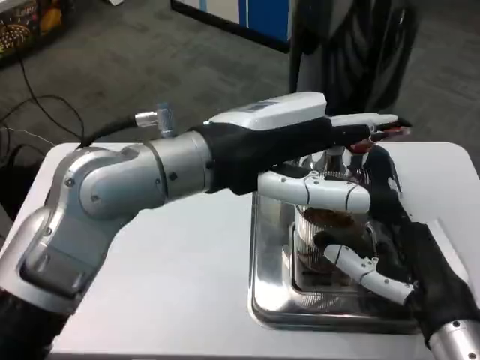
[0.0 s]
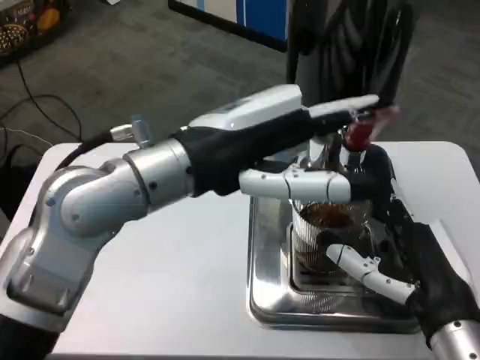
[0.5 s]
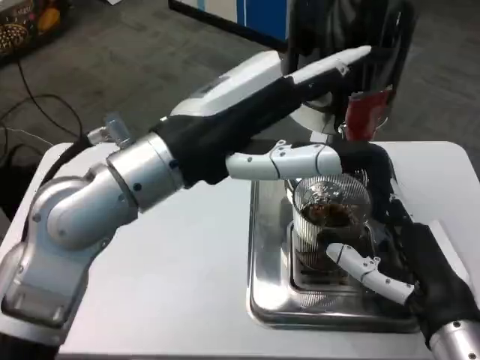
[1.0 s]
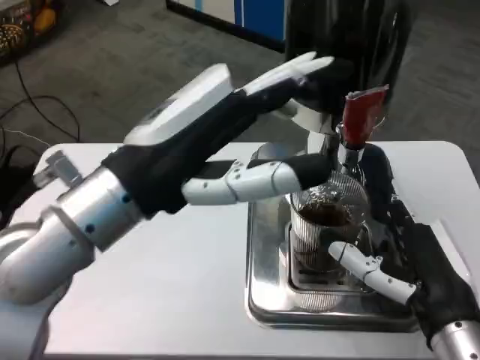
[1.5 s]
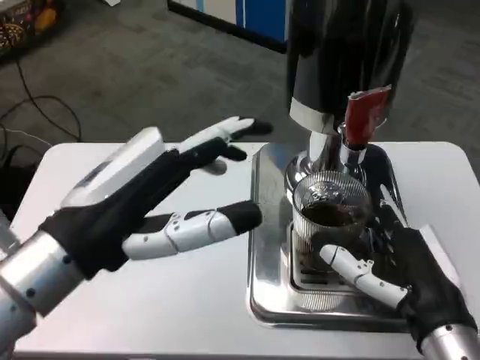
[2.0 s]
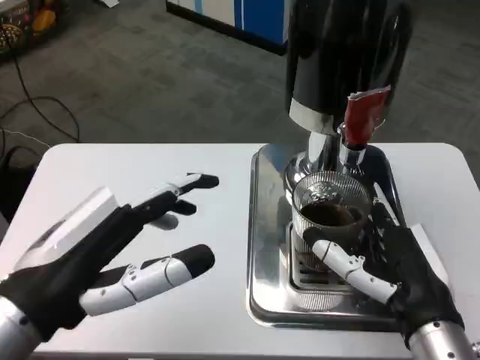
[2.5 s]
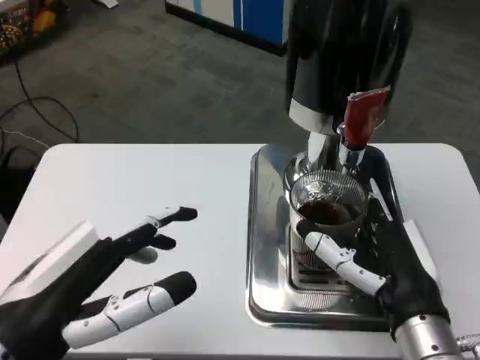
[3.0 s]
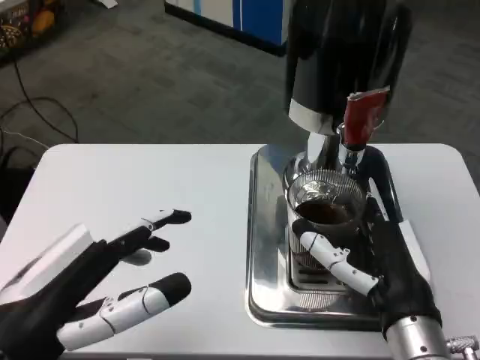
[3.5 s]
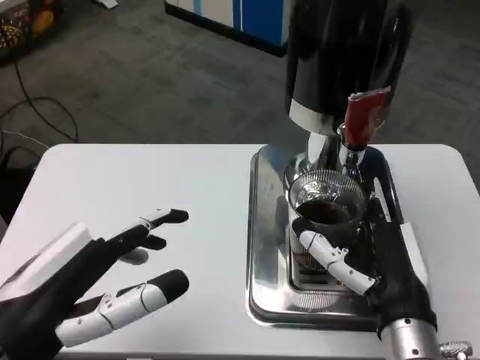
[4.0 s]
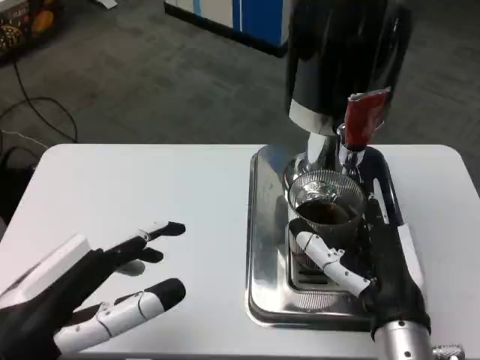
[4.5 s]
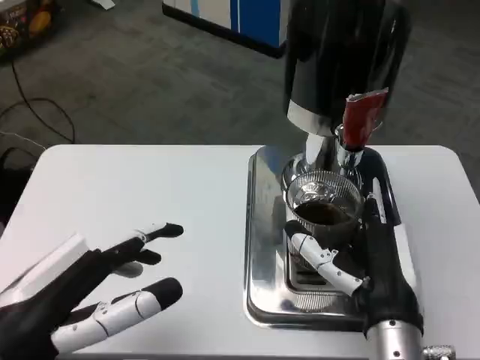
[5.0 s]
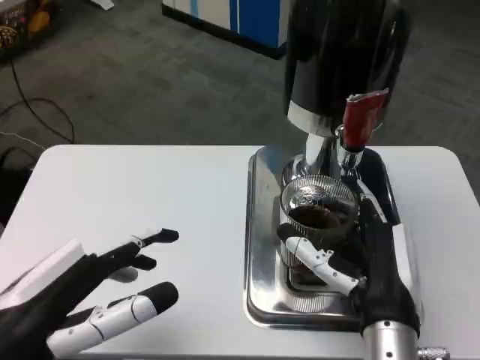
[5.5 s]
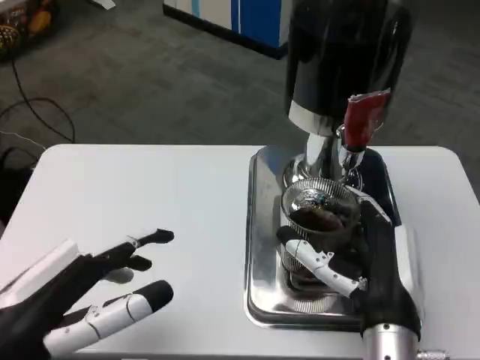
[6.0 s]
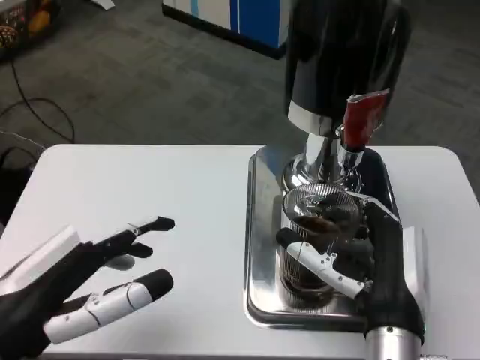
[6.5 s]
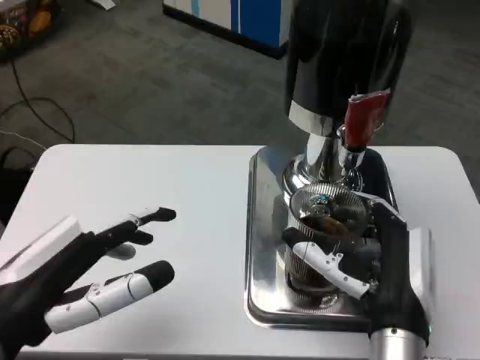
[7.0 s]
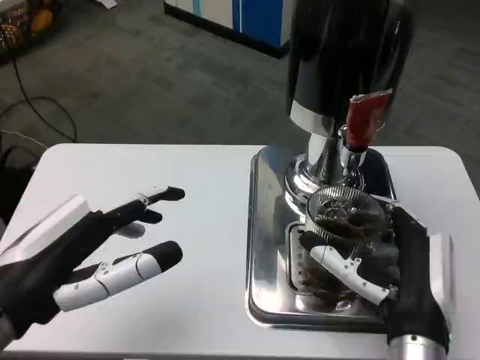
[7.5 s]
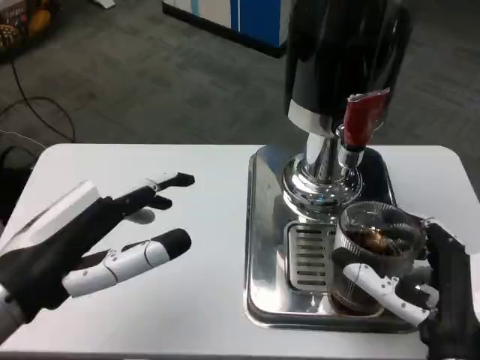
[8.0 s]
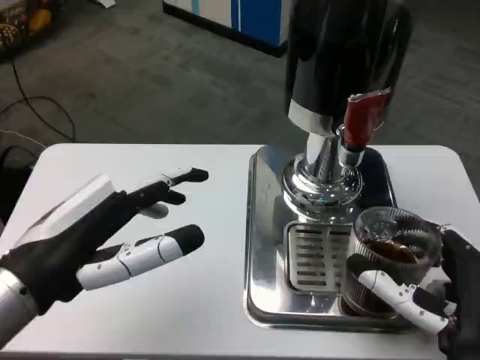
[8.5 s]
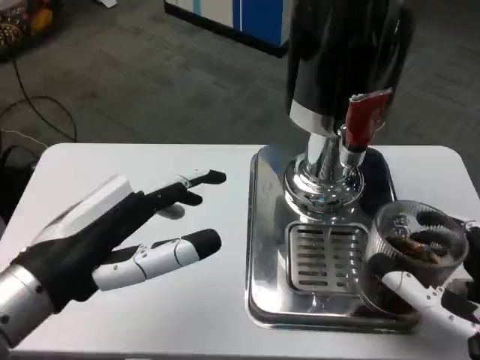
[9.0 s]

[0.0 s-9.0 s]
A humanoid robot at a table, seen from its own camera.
Task of the whole recording: Grasp the cup under the faucet to collect the drink, then remove the cup.
0.0 to 2.0 s: The left hand shifts roughly 15 cm to the left, downward and backward.
2.0 to 4.5 s: The left hand goes some 5 cm backward. The right hand changes place by some 5 cm.
4.5 to 7.0 s: There are only small adjustments of the hands.
7.0 to 9.0 s: The right hand shifts about 10 cm to the right and backward.

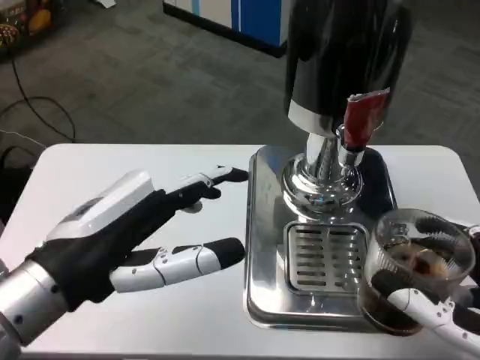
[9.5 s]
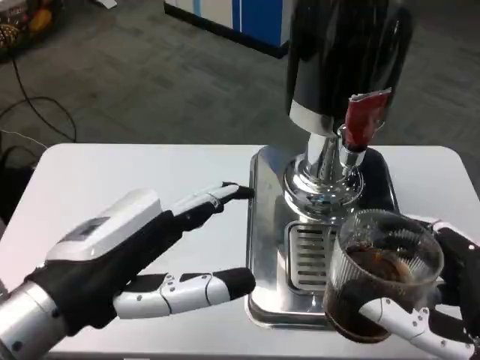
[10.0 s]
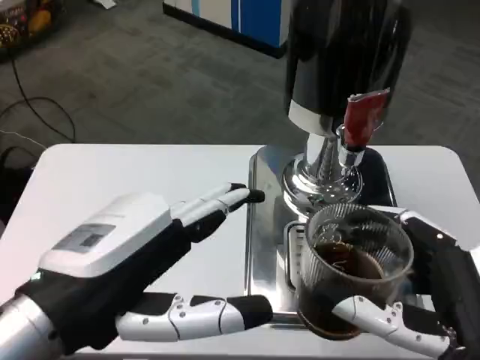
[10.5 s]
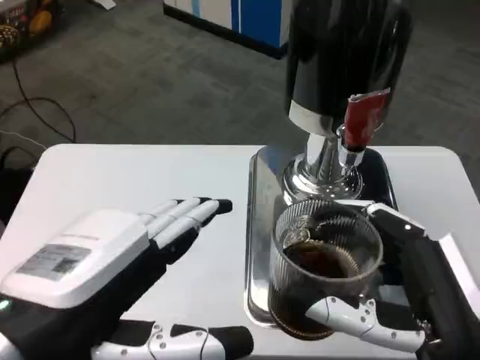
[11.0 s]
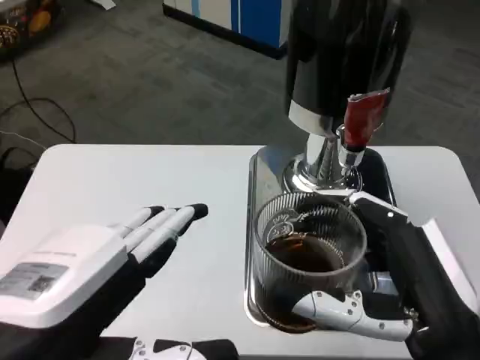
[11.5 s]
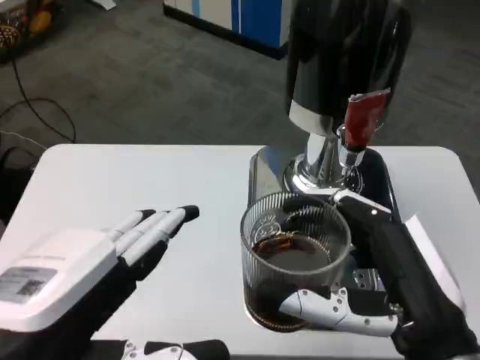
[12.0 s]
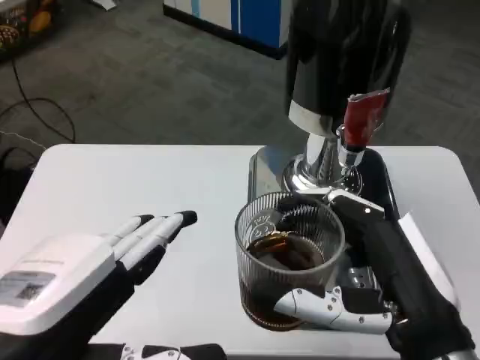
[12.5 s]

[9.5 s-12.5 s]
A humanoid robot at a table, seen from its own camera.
Task of the whole recording: Grasp the cup under the faucet to collect the drink, then remove the cup.
9.5 to 11.0 s: The left hand shifts approximately 10 cm backward.

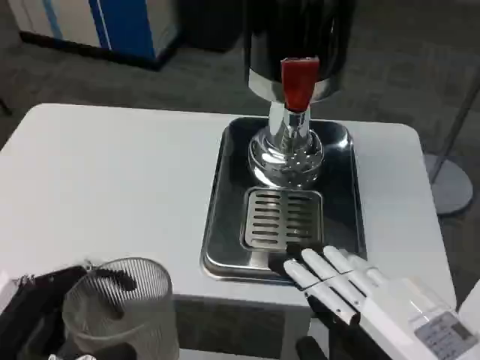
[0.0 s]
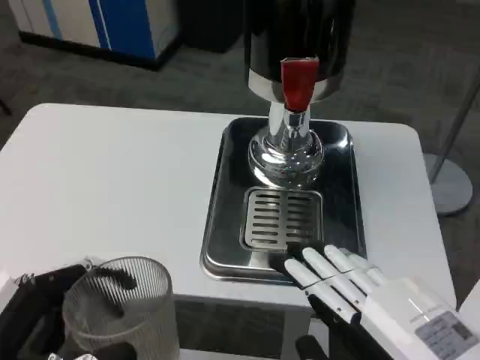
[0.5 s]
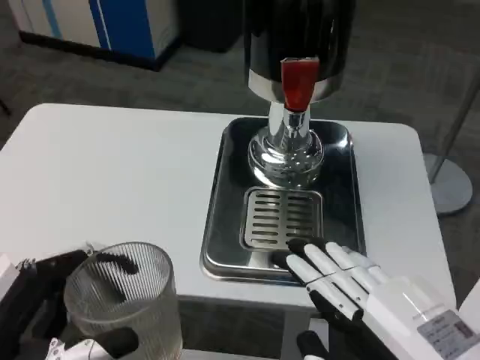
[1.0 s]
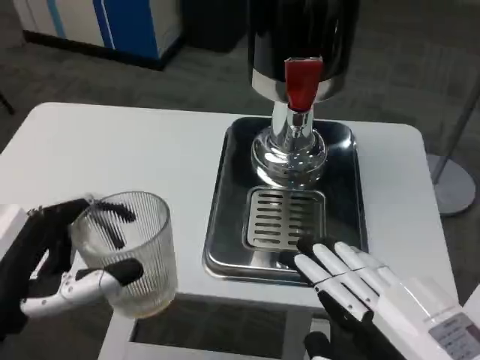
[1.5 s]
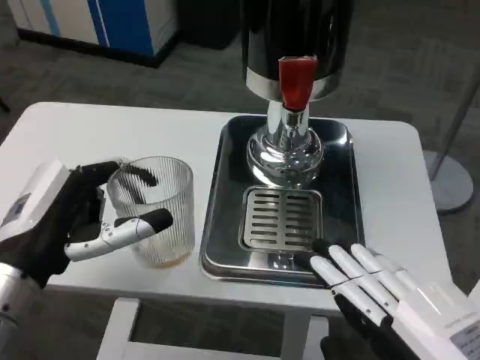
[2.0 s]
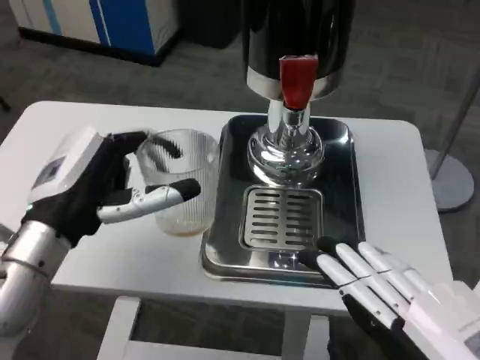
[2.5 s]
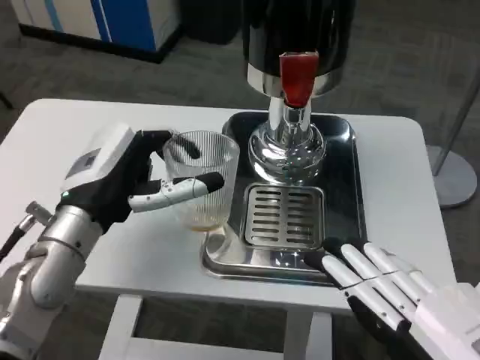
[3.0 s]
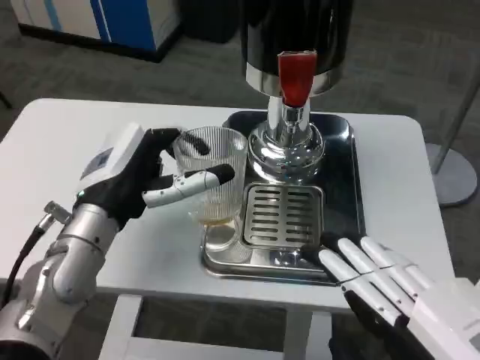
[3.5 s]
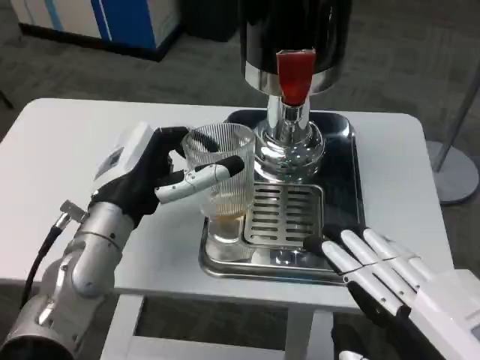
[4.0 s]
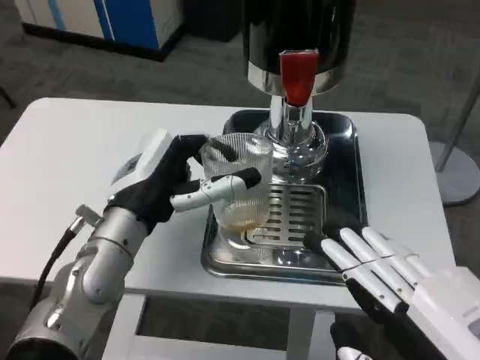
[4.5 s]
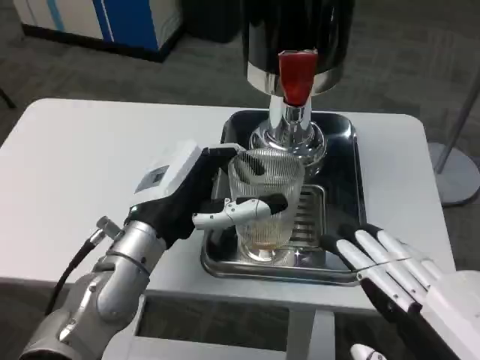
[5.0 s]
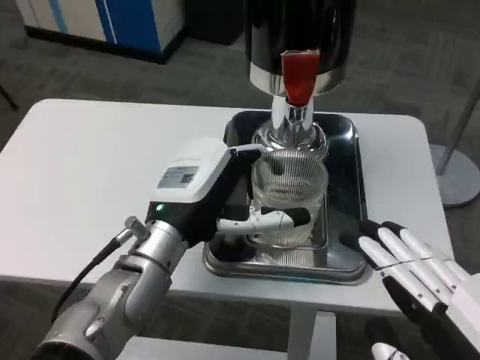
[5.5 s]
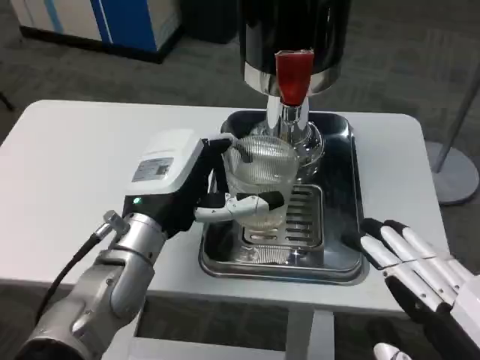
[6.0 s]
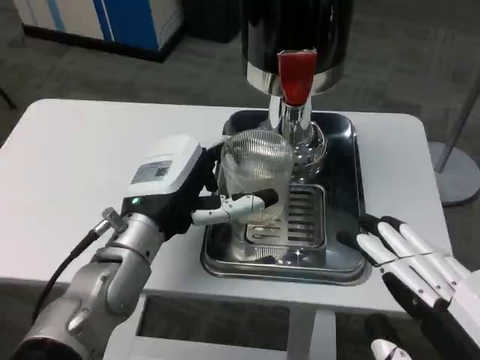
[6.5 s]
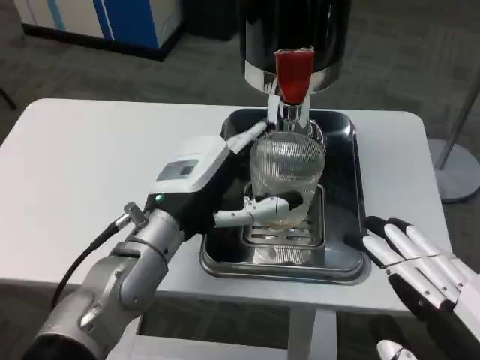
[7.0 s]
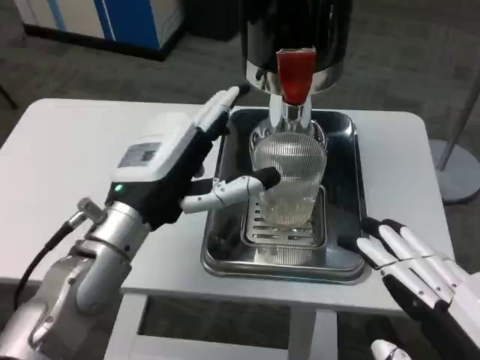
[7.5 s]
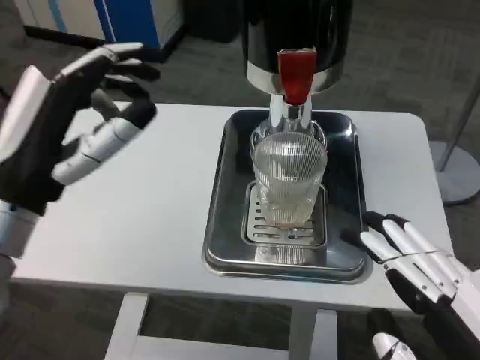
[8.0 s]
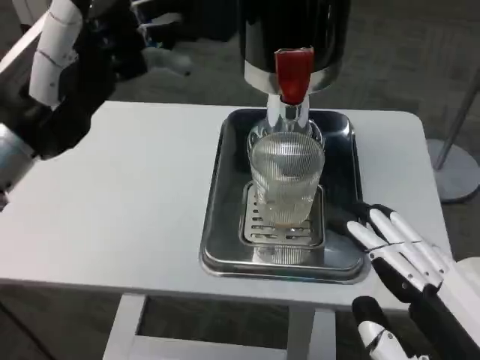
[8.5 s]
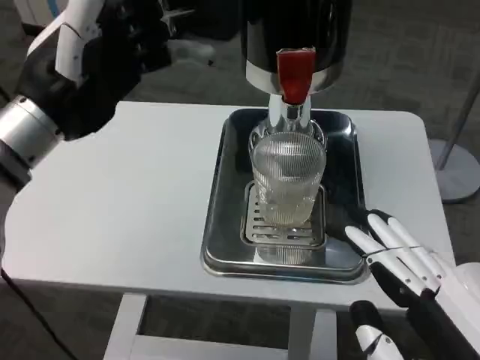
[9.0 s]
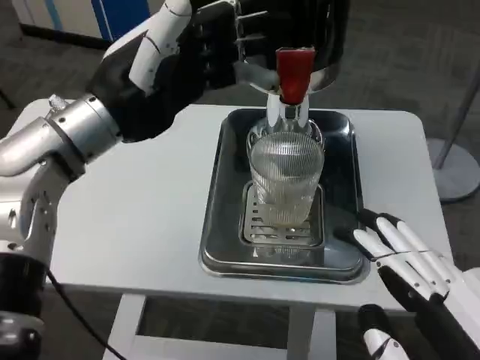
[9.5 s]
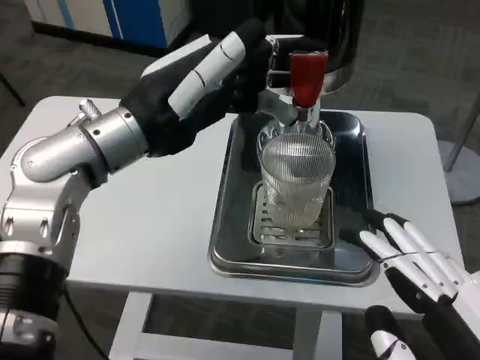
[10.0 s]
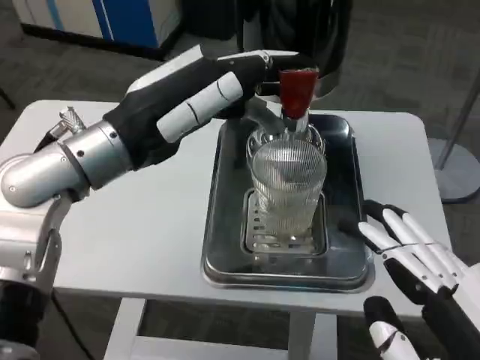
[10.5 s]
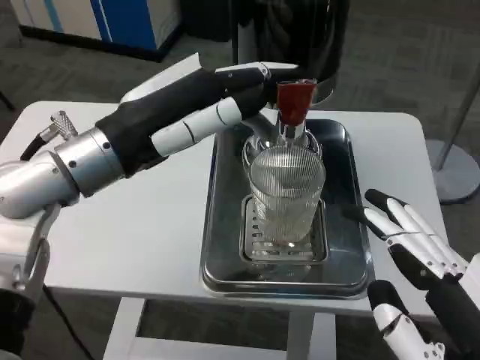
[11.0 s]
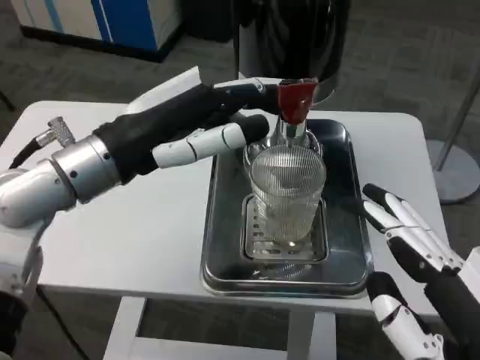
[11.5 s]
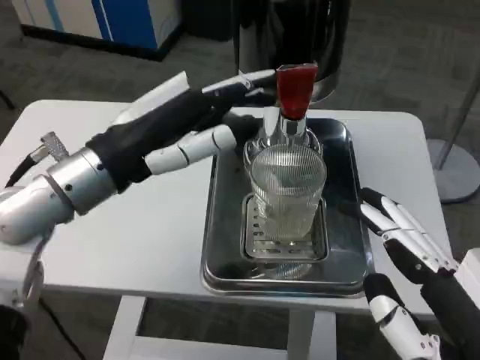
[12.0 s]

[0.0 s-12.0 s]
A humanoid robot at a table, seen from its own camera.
Task of the whole recording: Grasp the cup under the faucet to collect the drink, then remove the cup.
0.0 to 2.0 s: The left hand heads forward, covering about 10 cm.
2.0 to 4.0 s: The left hand shifts approximately 10 cm to the right and forward.
6.0 to 8.0 s: The left hand is displaced to the left, upward and backward by some 15 cm.
8.0 to 10.0 s: The left hand travels forward, upward and to the right by roughly 10 cm.

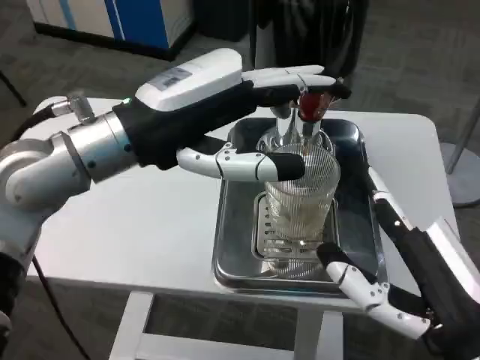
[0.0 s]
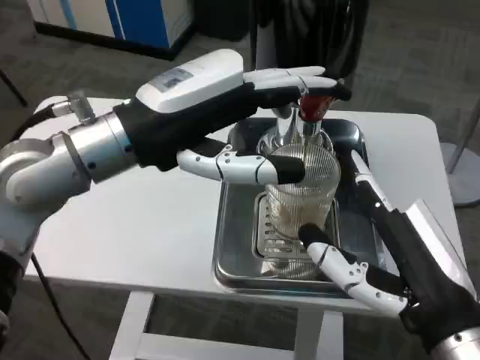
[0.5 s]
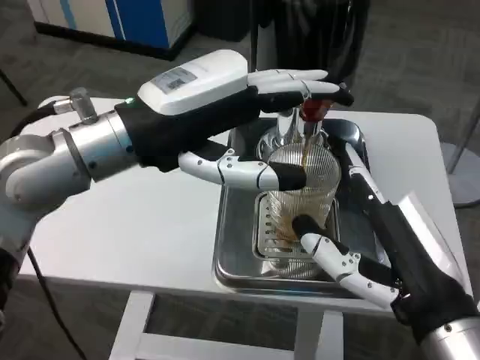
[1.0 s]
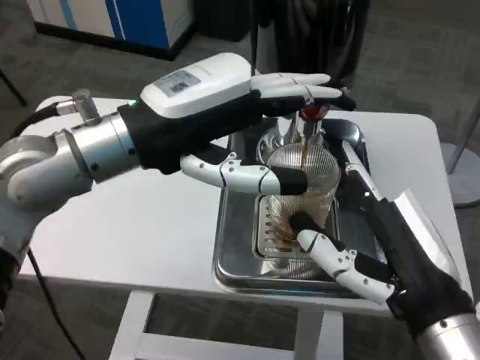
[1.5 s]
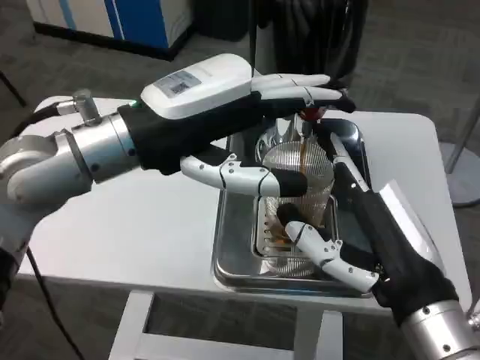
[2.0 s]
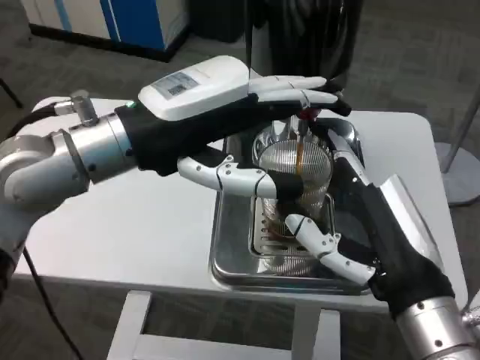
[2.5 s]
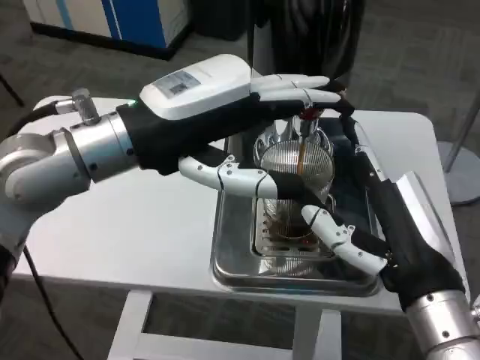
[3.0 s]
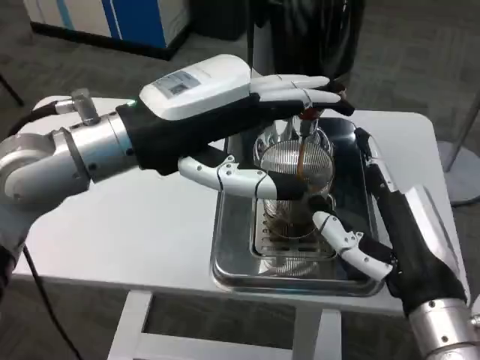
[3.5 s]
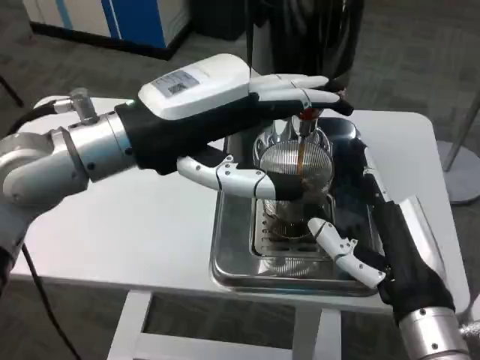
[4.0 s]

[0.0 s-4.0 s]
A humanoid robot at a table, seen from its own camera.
Task of the whole recording: Grasp the cup under the faucet to collect the drink, then remove the cup.
2.0 to 4.0 s: There are only small adjustments of the hands.
